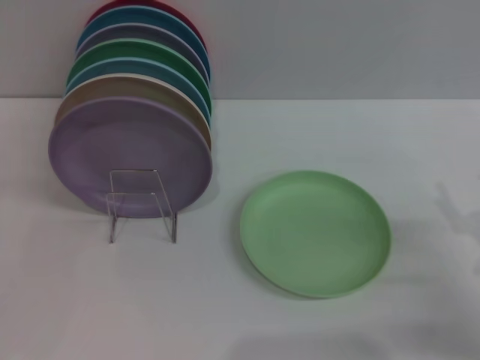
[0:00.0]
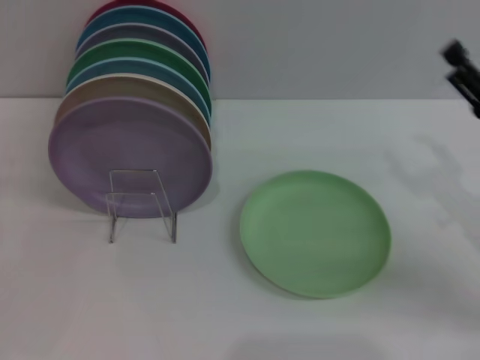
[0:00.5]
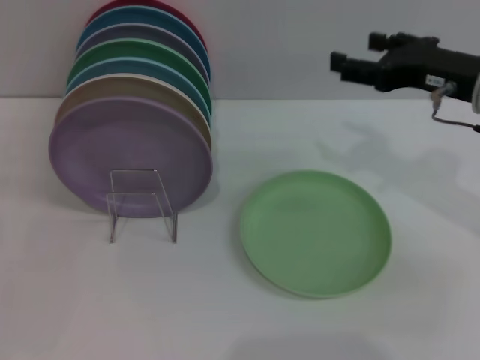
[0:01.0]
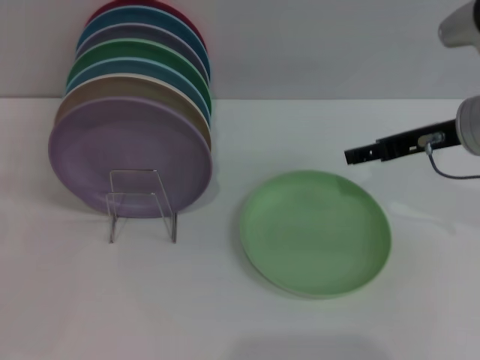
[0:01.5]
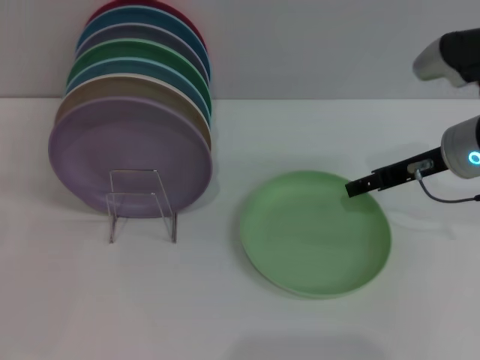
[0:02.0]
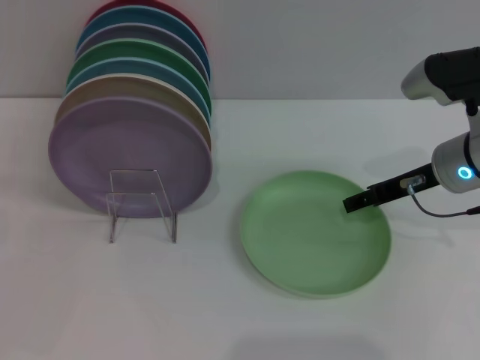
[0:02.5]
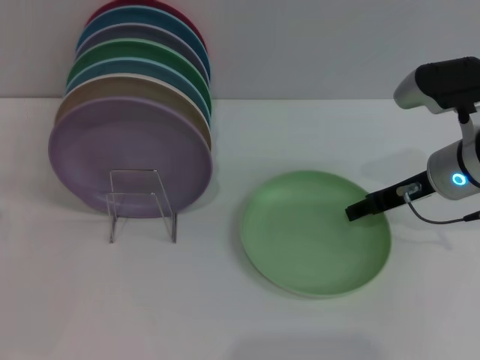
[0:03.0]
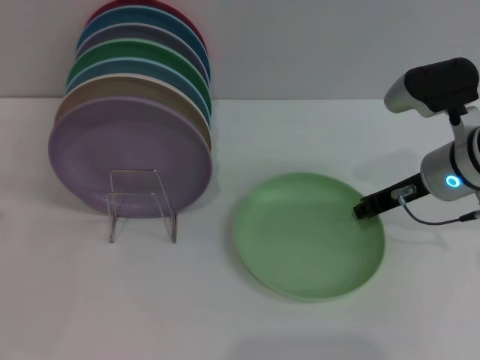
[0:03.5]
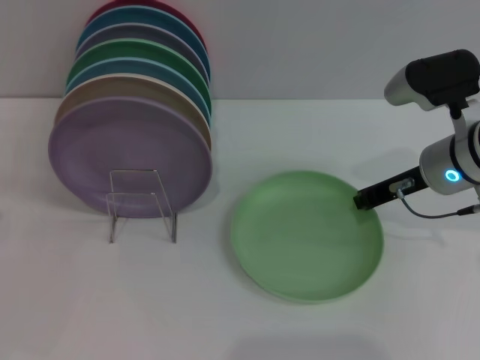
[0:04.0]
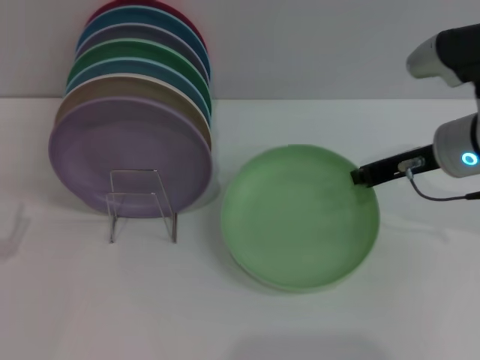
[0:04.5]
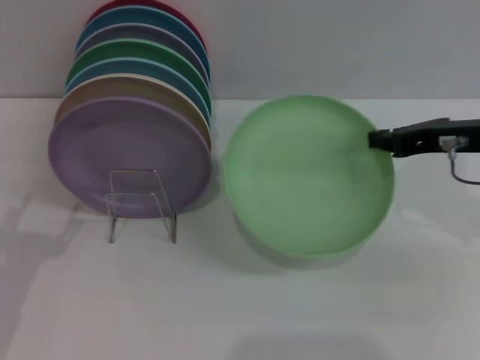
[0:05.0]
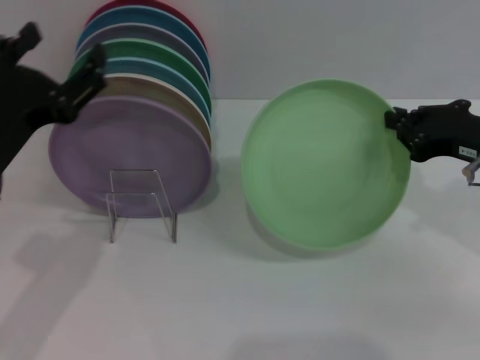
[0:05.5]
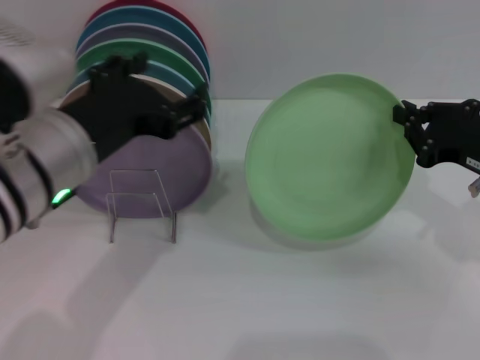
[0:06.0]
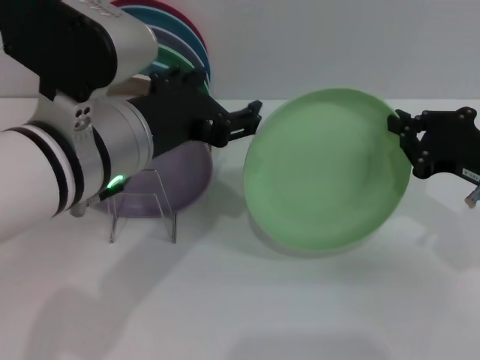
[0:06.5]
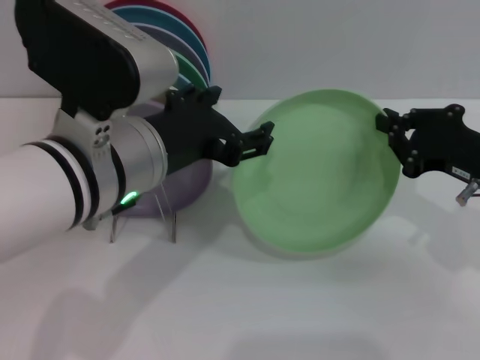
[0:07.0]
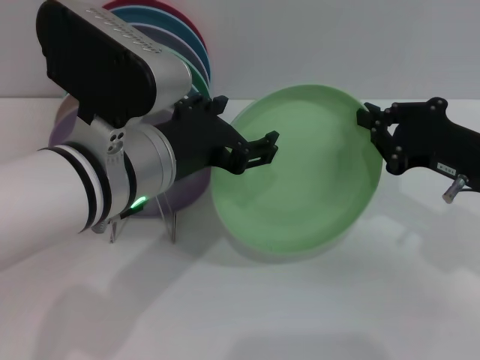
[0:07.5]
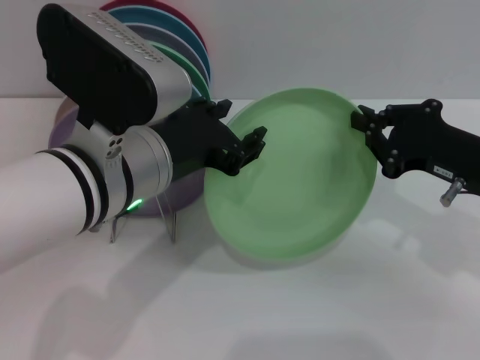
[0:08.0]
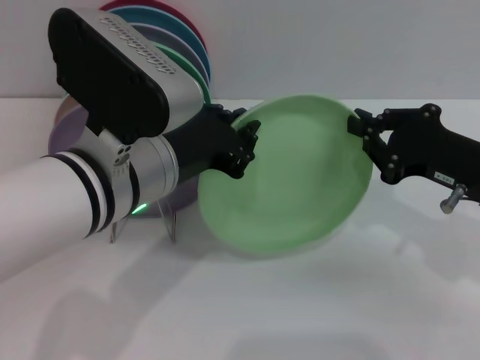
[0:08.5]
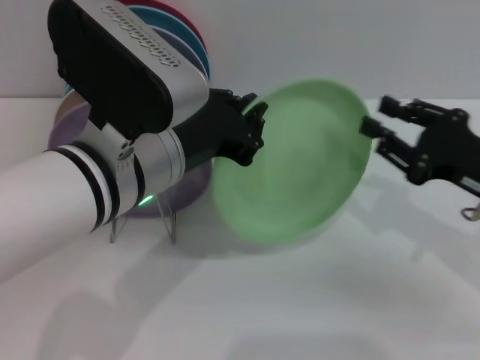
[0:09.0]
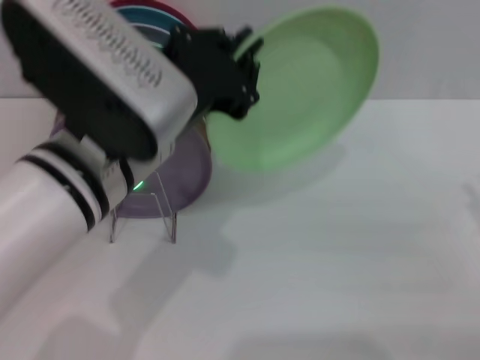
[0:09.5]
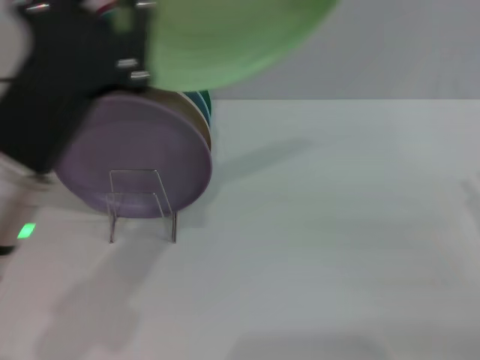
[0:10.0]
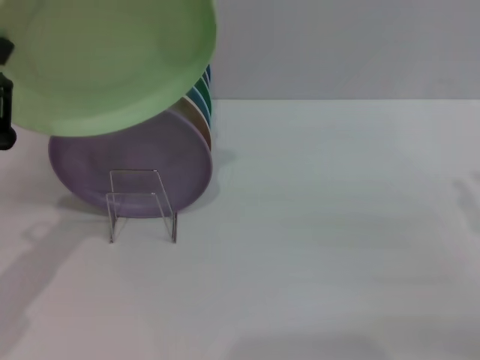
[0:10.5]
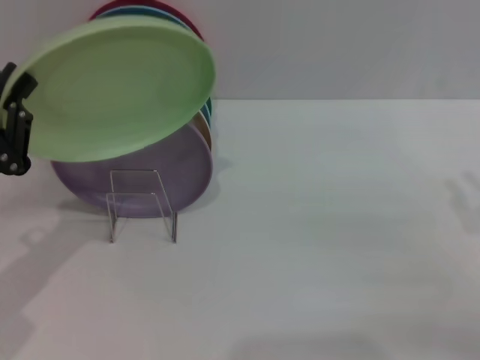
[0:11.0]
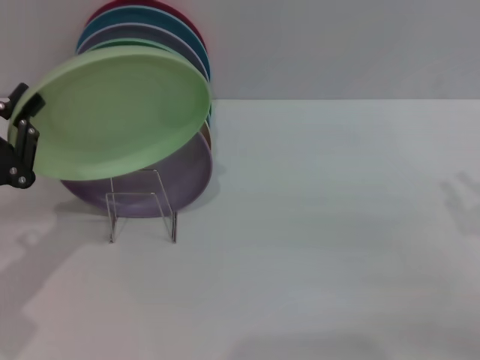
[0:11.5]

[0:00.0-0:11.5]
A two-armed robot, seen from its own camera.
Task of the whole recording: Grip the plate with one hand, pass it to the other, then set it on the shelf.
Step, 0:00.0 to 0:04.5: Pick up the plate with the right gripper.
Step, 0:05.5 to 0:09.0: Pass the plate from the right gripper to the left gripper.
0:00.0 to 0:02.0: The right gripper travels forward, upward and to the left by some 20 cm.
0:02.0 to 0:04.0: The right gripper closes.
0:04.0 to 0:06.0: The left gripper is displaced to the right and upward by approximately 25 cm. Meanwhile the right gripper heads backward and to the right, covering some 10 cm.
0:07.5 to 0:09.5: The right gripper heads to the right and backward, covering some 15 cm, and opens its fingers, while the left gripper closes up.
0:09.5 to 0:11.5: The left gripper is displaced to the left and downward by about 25 cm.

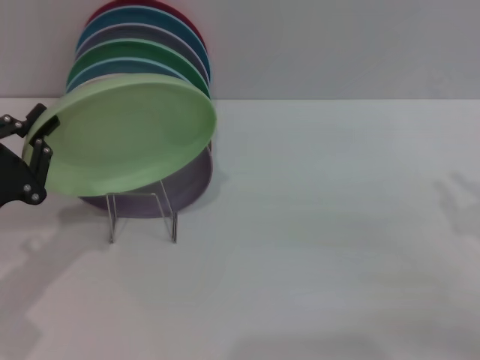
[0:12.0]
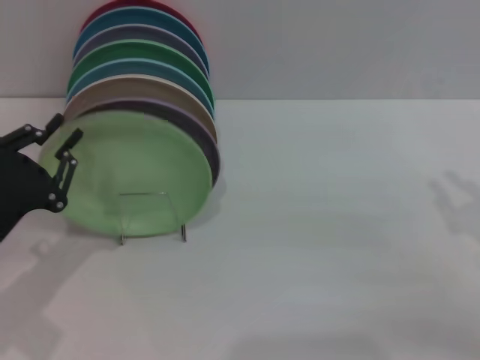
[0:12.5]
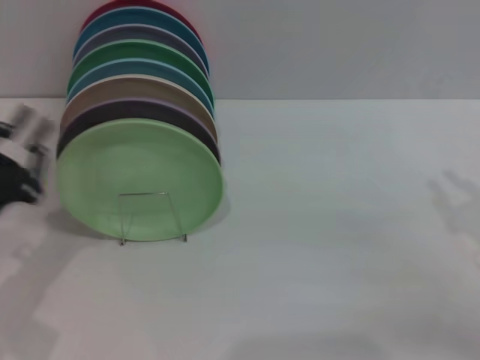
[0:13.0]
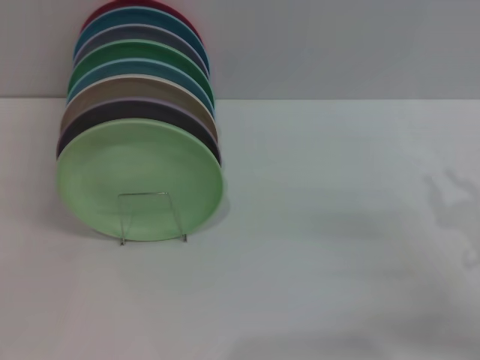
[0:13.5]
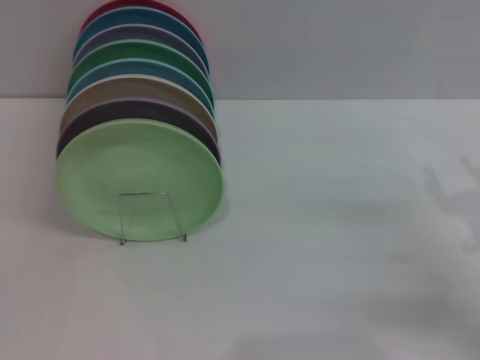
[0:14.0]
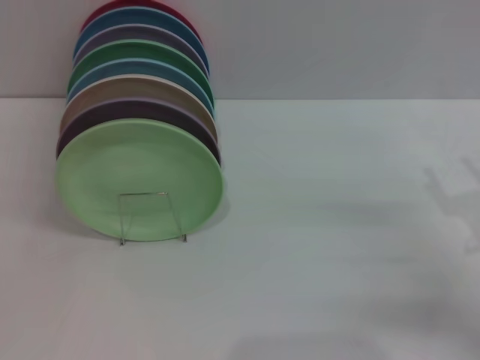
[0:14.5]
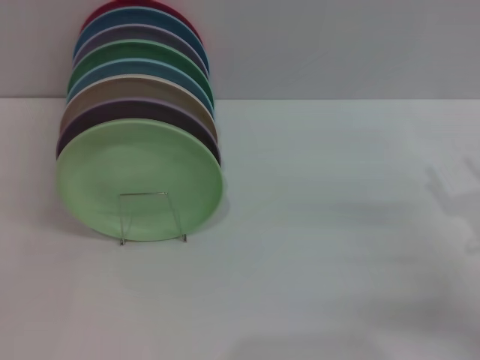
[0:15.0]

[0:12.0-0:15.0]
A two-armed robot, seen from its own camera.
Task of the whole recording: Grip the plate with one hand, pass it to the other, then set it on the shelf.
0:12.0 to 0:13.5: The left gripper shifts approximately 5 cm to the left.
